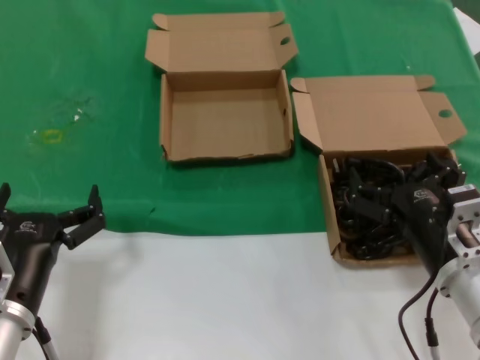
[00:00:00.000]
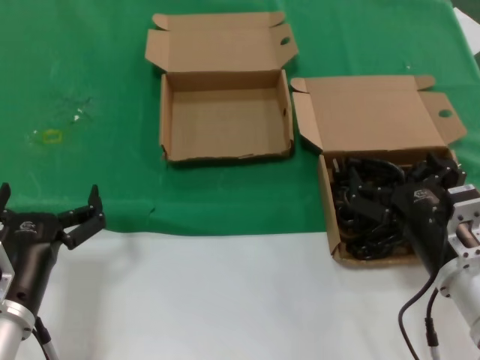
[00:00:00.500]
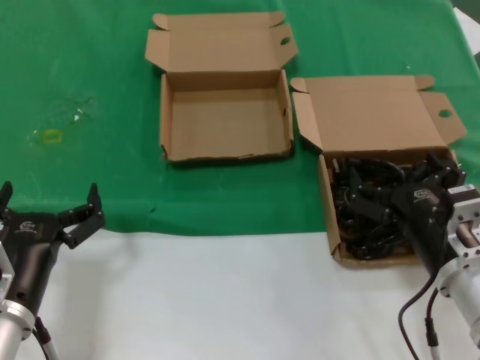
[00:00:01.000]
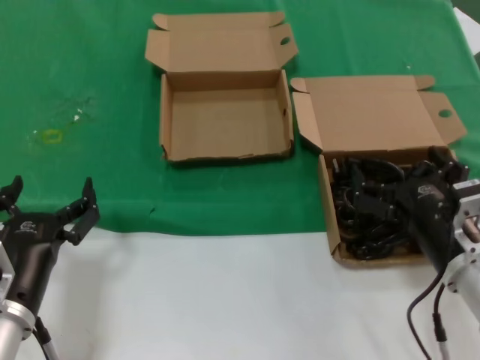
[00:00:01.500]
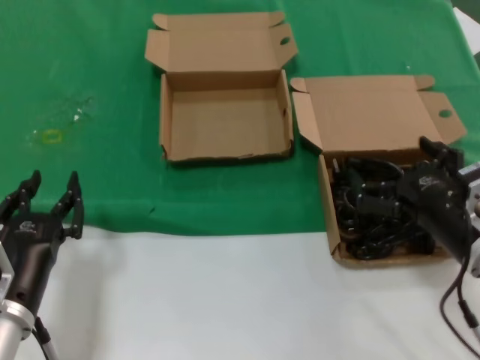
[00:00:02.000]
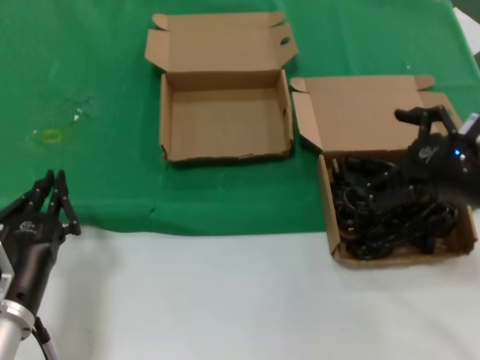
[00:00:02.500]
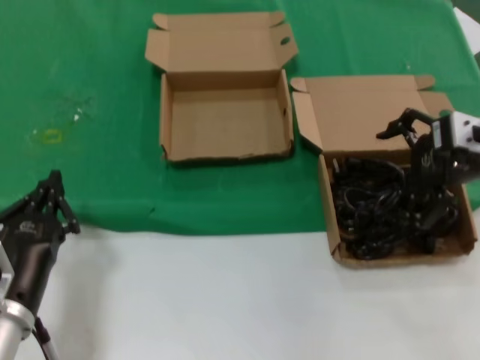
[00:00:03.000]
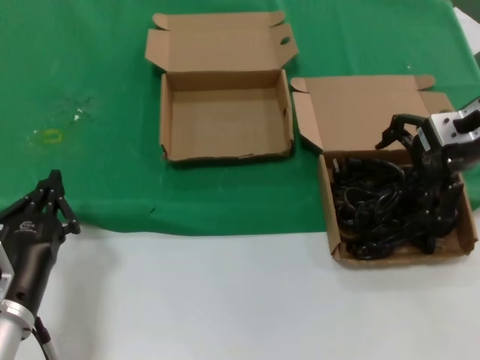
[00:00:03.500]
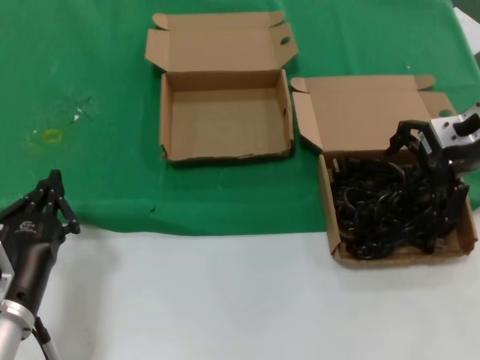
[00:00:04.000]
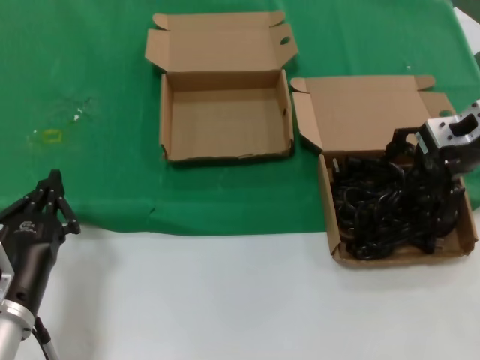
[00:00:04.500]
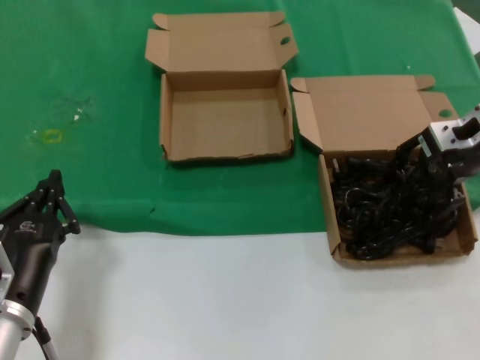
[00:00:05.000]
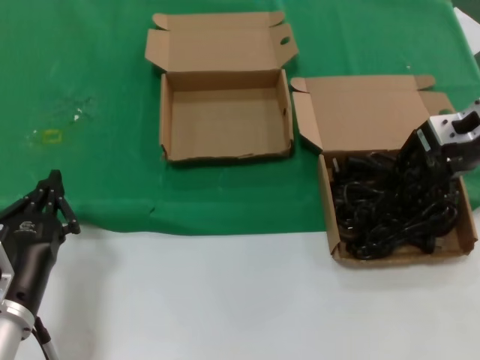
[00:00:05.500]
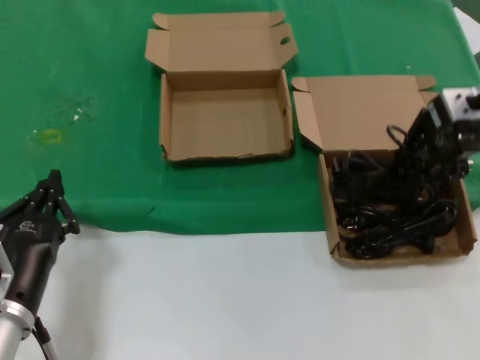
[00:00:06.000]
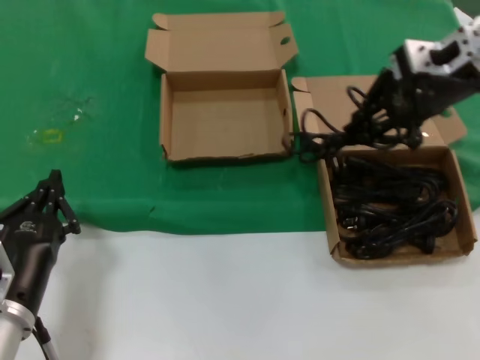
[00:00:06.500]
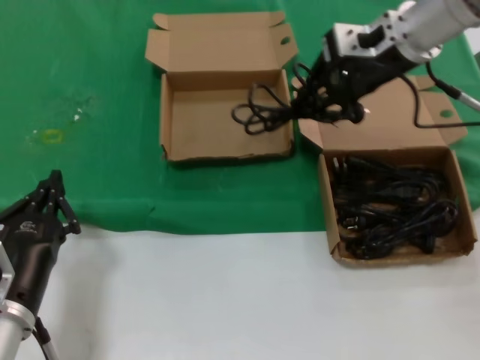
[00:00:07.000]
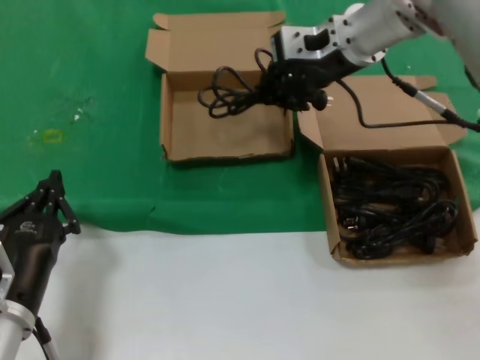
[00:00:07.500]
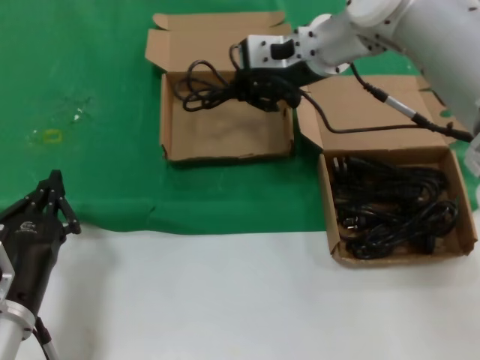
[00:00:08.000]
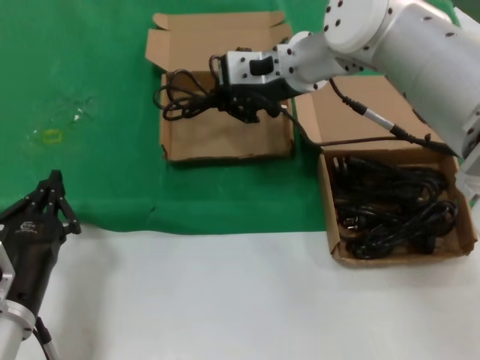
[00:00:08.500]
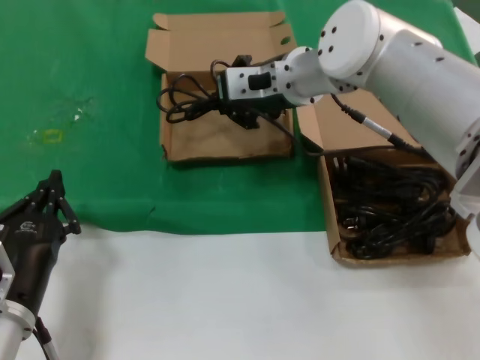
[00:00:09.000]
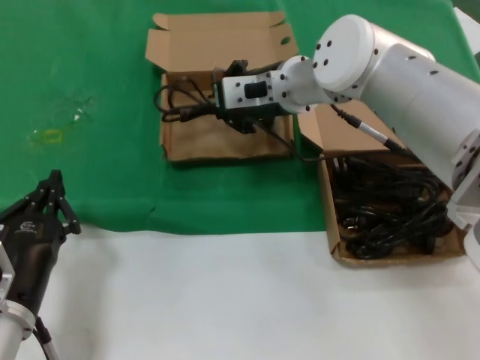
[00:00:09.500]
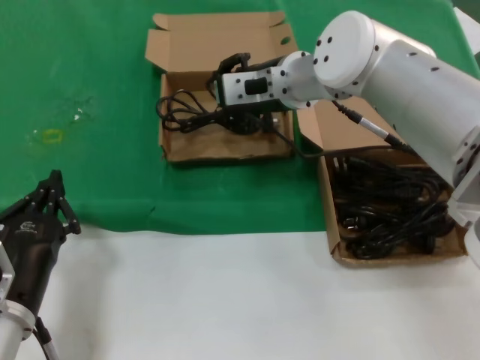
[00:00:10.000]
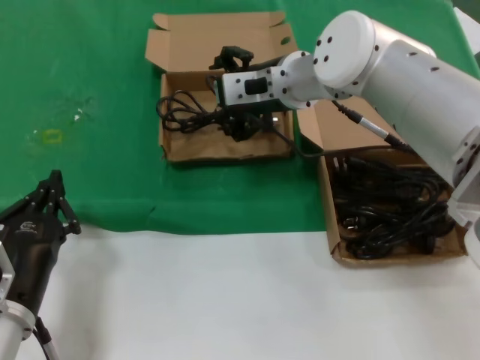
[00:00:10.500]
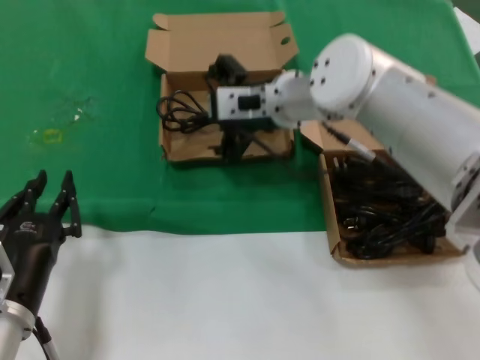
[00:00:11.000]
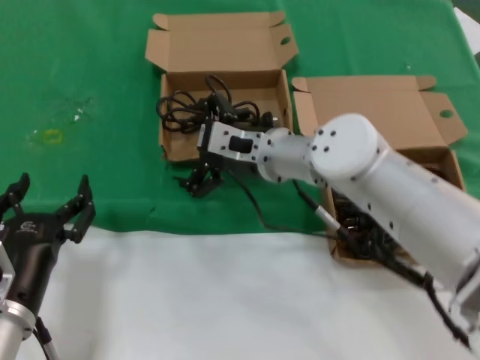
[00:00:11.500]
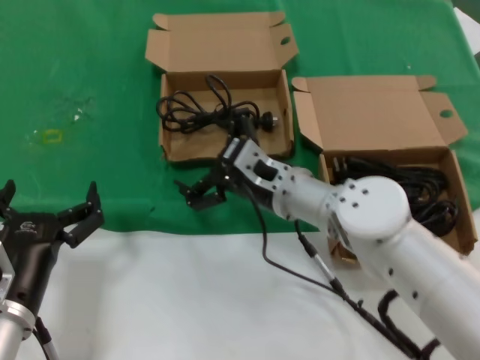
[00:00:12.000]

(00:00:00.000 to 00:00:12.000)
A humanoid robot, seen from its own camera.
Task of the whole recording: take the parts from the box containing them and put them into an empty box.
Step, 00:00:00.000 - 00:00:05.000: Grasp the data cable.
Step, 00:00:05.500 - 00:00:10.000: Place the data cable in the another box.
00:00:00.000 - 00:00:02.000: The right hand moves some 5 cm.
00:00:02.000 - 00:00:04.000: The right hand shifts approximately 25 cm forward and upward.
00:00:04.000 - 00:00:06.000: There are only small adjustments of the hands.
00:00:06.000 - 00:00:08.000: The right hand heads to the left, covering some 20 cm.
00:00:08.000 - 00:00:10.000: The right hand travels downward by roughly 5 cm.
00:00:10.000 - 00:00:12.000: The right hand goes some 15 cm downward and backward.

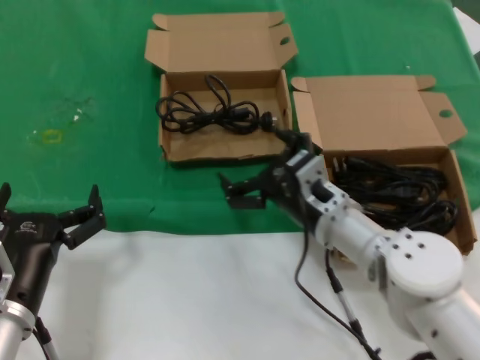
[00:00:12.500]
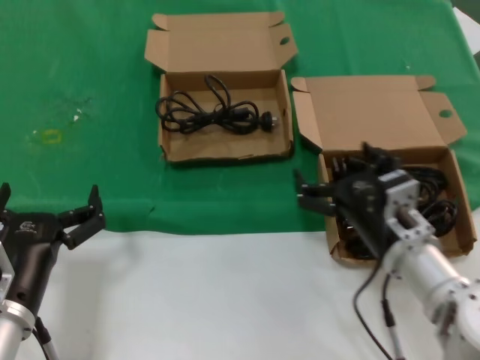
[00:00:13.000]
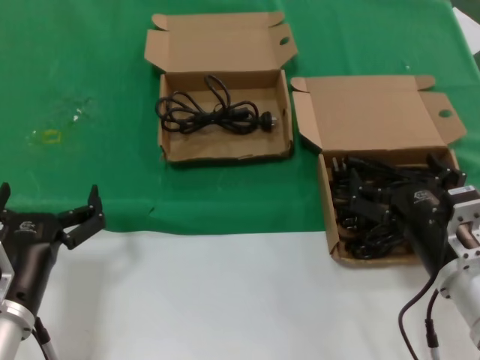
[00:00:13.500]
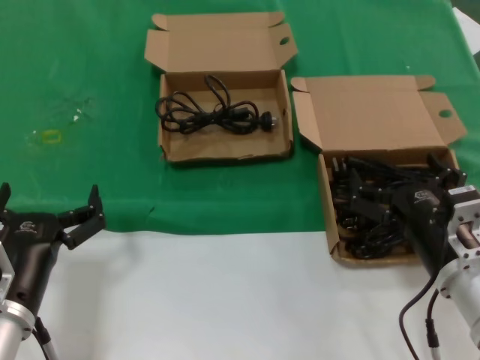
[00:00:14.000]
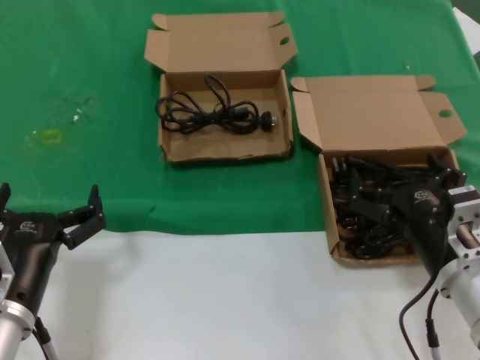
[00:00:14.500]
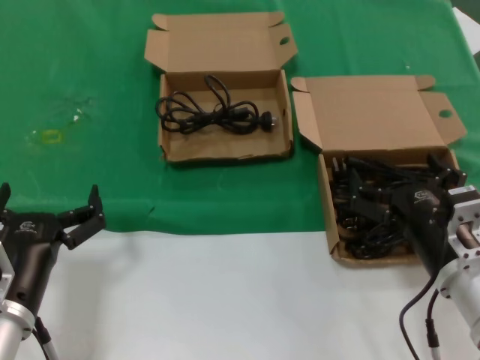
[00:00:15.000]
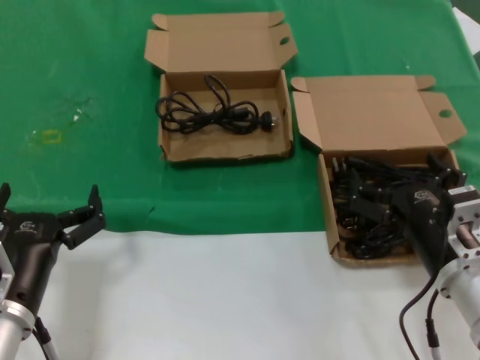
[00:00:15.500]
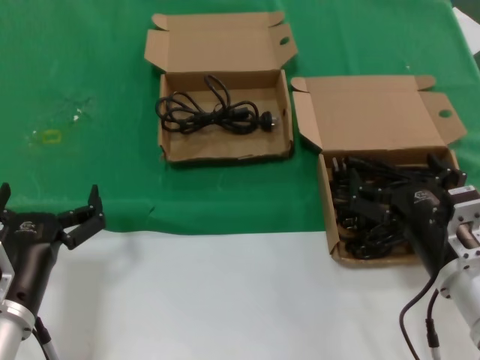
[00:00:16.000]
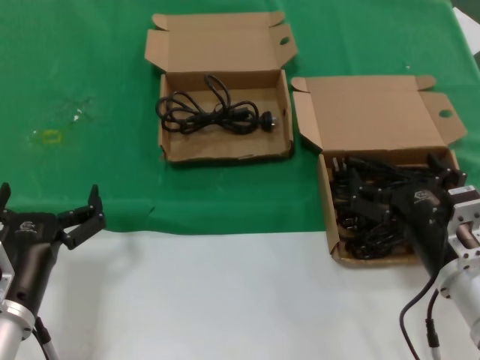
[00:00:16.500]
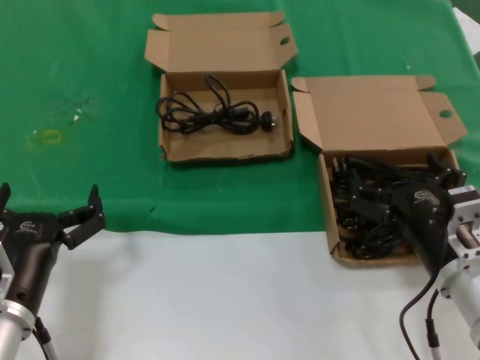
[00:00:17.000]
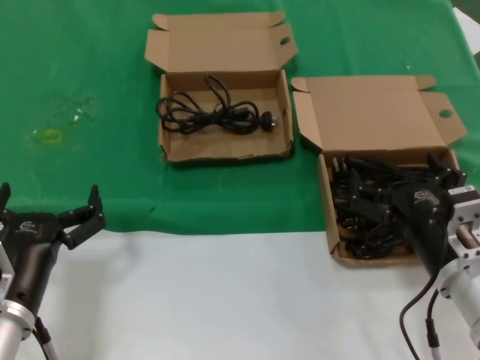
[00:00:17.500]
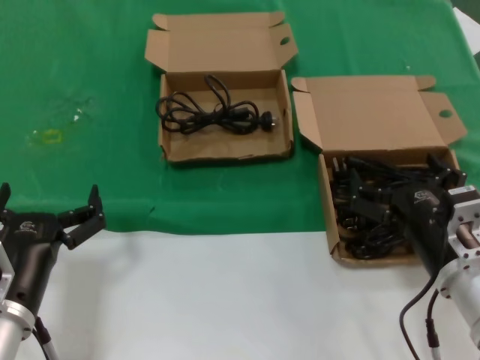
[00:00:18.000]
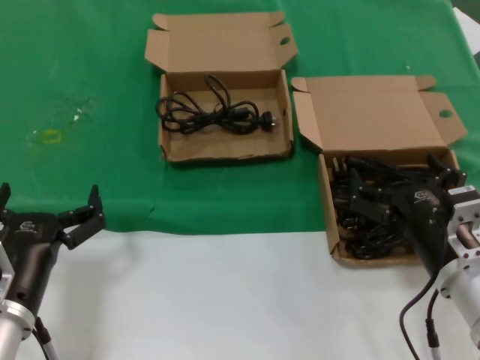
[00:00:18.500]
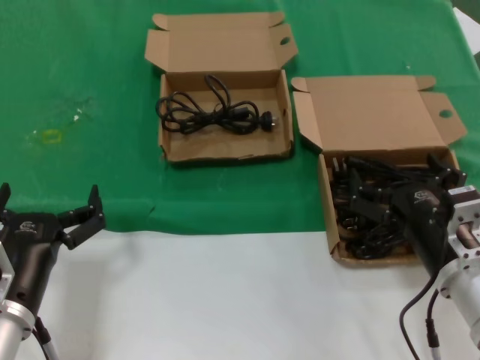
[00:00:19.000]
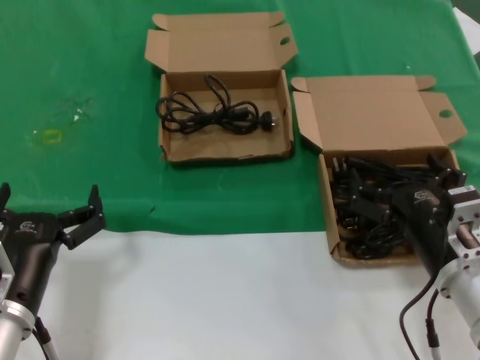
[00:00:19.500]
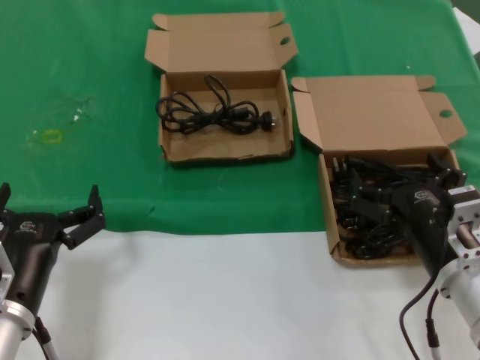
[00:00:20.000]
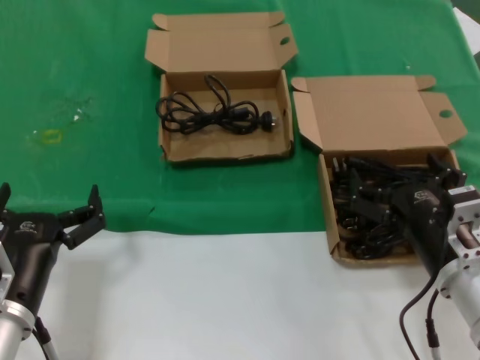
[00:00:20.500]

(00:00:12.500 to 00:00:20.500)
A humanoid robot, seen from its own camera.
Task of the whole recording: take the parts from the box containing them and put them into an empty box.
00:00:12.500 - 00:00:14.500: The right hand travels to the right and backward by roughly 15 cm.
00:00:14.500 - 00:00:20.500: The two hands keep their place.

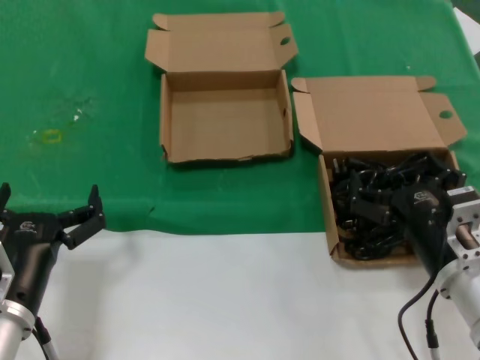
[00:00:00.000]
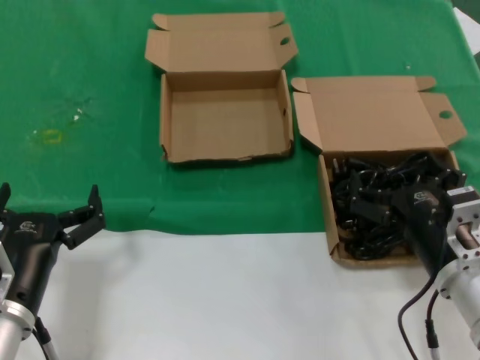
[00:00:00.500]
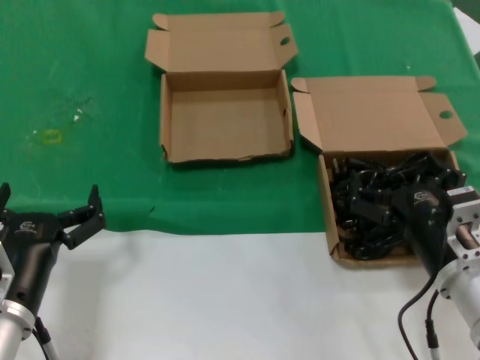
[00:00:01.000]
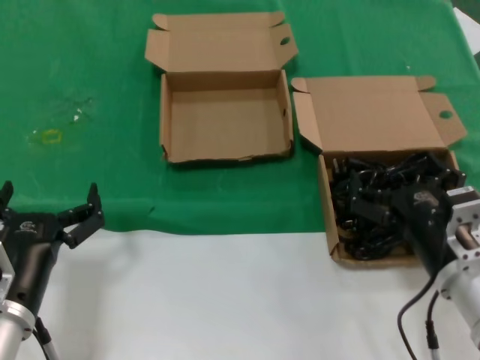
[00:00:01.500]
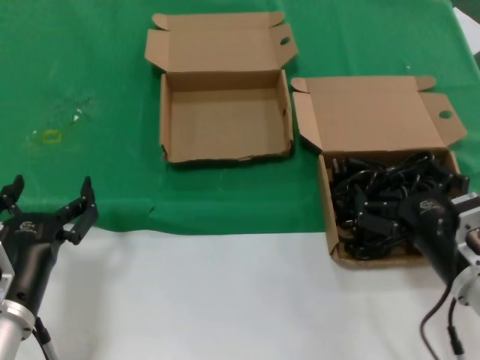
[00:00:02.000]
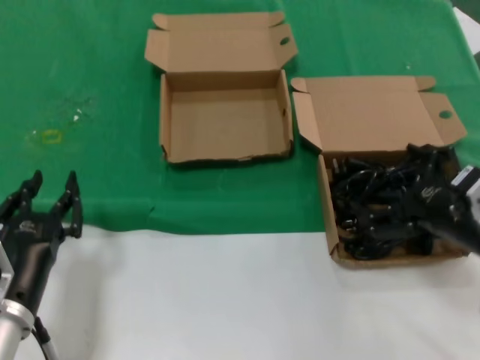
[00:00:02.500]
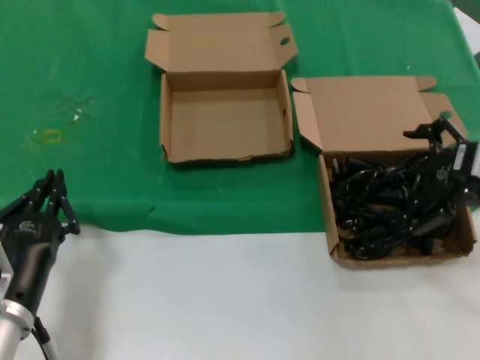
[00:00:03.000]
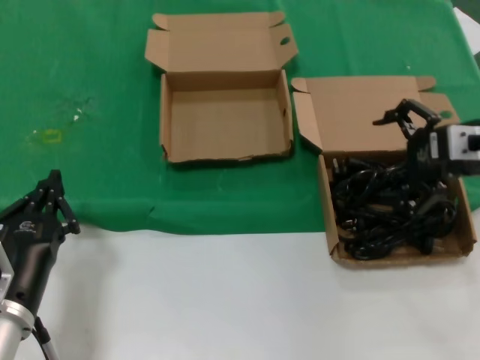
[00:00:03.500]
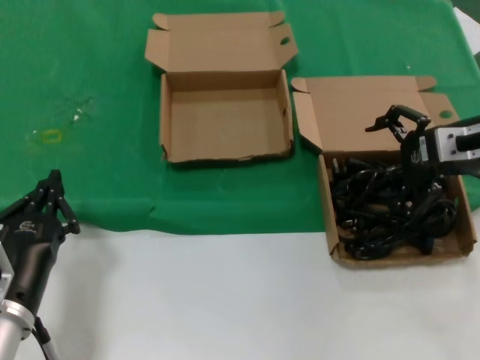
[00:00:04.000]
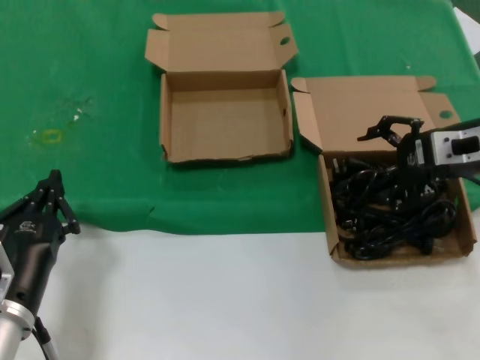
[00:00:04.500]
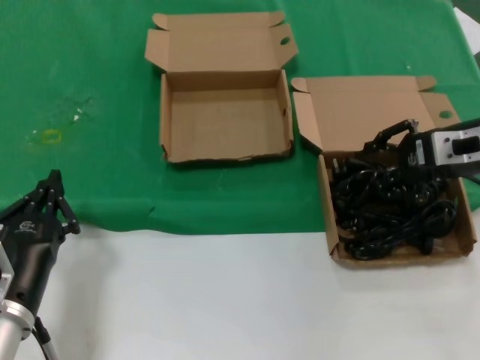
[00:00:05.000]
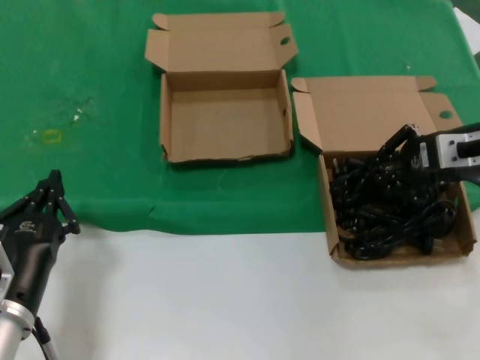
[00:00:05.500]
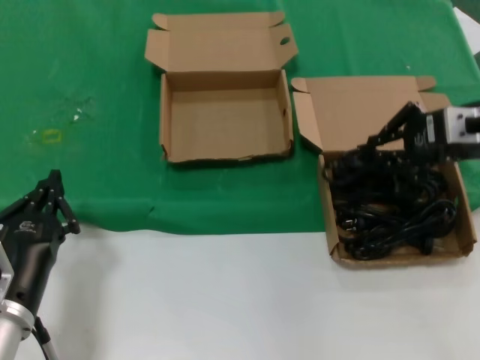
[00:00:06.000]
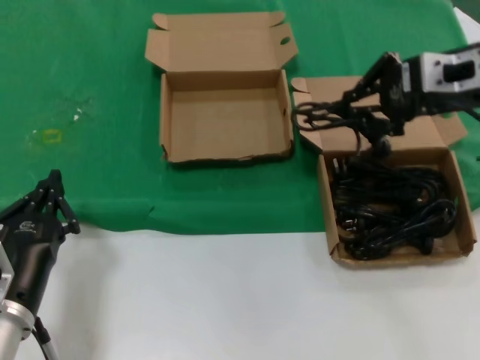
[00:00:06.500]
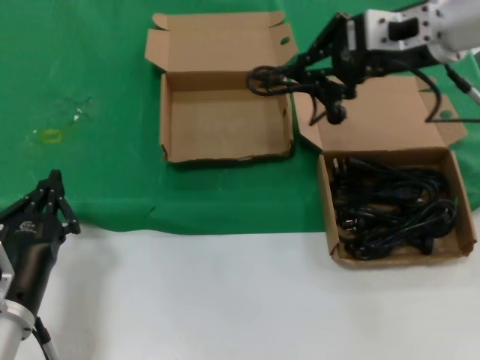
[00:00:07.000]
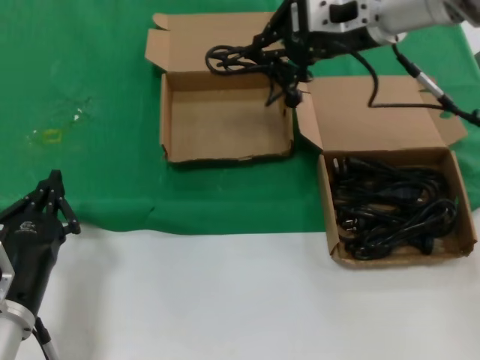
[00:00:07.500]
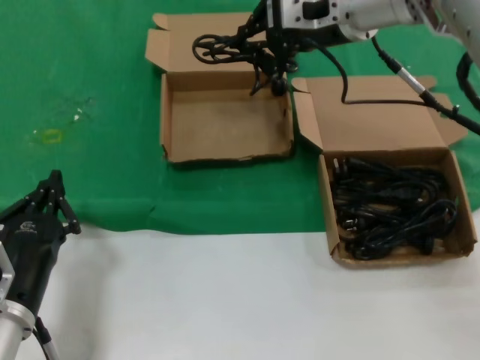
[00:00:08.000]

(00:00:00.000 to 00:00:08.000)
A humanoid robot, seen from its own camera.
Task of the whole recording: take the parts from the box containing them and put them into an empty box.
Step, 00:00:00.000 - 00:00:05.500: Grasp the data cable.
00:00:00.000 - 00:00:02.000: There are only small adjustments of the hands.
00:00:02.000 - 00:00:04.000: The right hand shifts approximately 25 cm upward, forward and to the right.
00:00:04.000 - 00:00:06.000: The hands make only small movements.
00:00:06.000 - 00:00:08.000: The right hand goes about 25 cm to the left, forward and upward.
